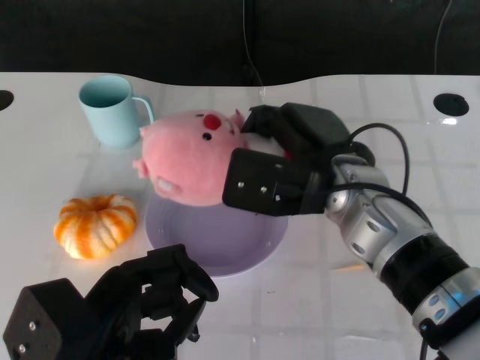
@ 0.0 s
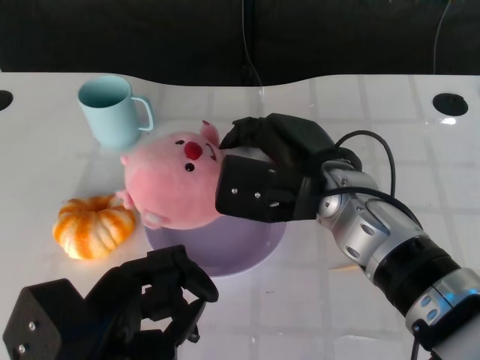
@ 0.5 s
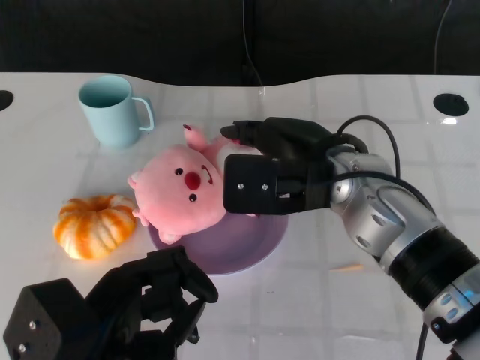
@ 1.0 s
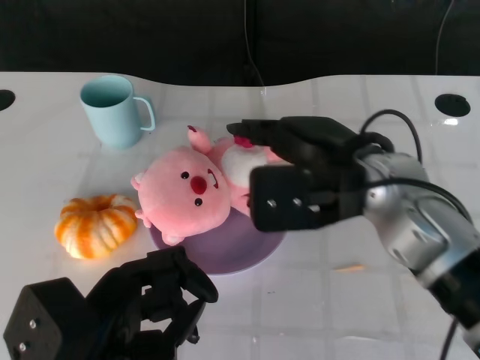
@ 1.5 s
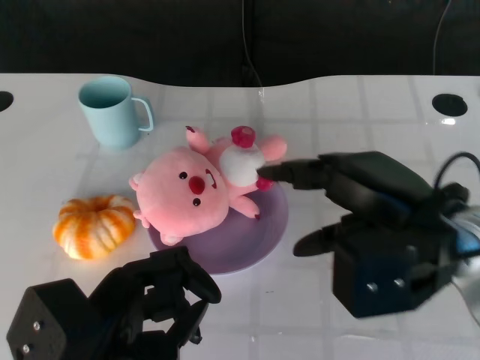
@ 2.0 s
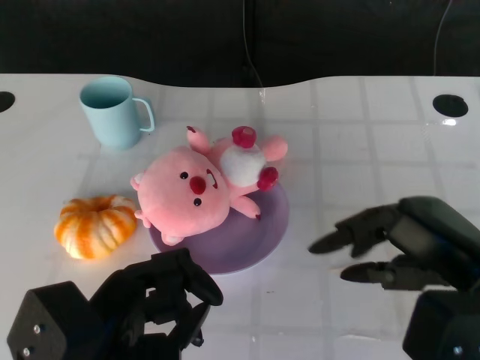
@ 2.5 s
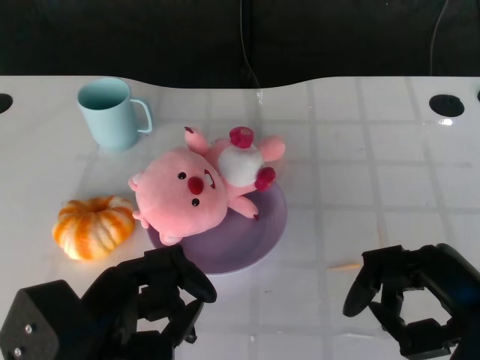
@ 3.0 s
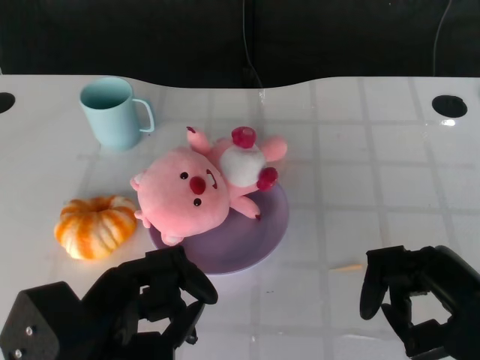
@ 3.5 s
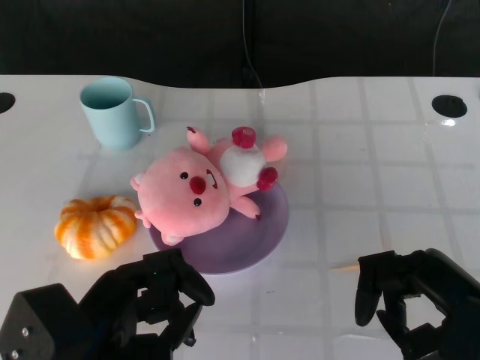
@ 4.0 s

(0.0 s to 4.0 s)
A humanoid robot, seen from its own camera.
Task of the whole recording: Pick up the doll on the other side of the plate and place it into the plate.
0.0 s - 2.0 s: The right hand heads to the right and backward, covering some 10 cm.
2.0 s - 4.0 s: The right hand travels backward, downward and to the right by roughly 10 cm.

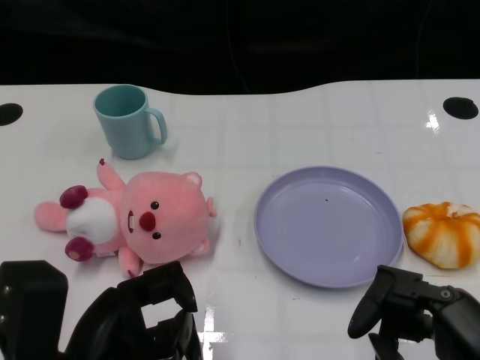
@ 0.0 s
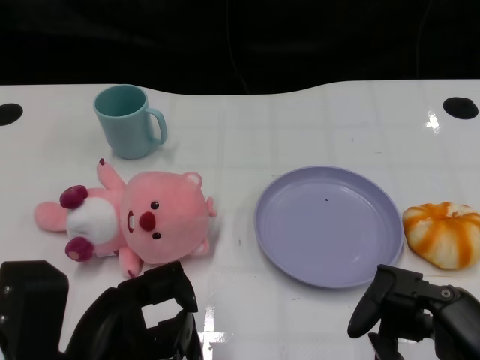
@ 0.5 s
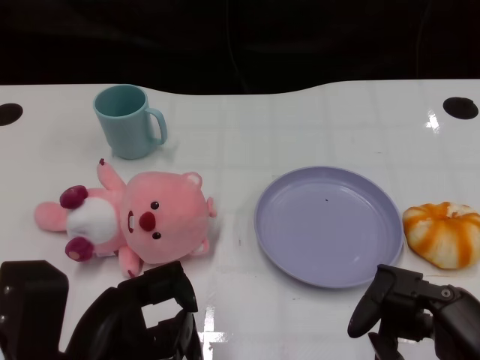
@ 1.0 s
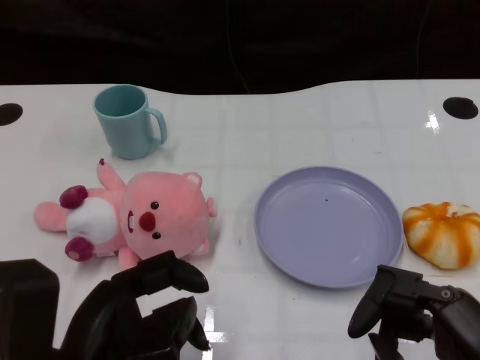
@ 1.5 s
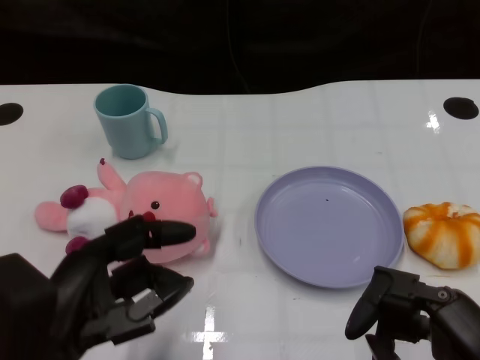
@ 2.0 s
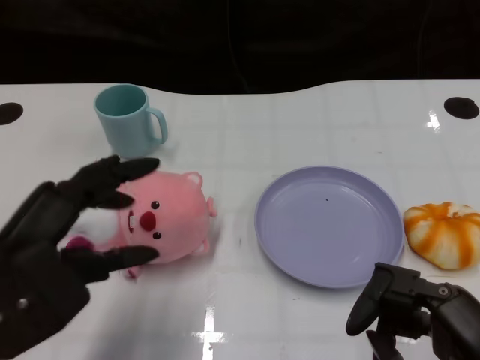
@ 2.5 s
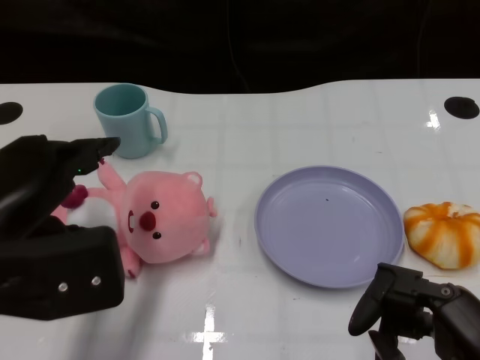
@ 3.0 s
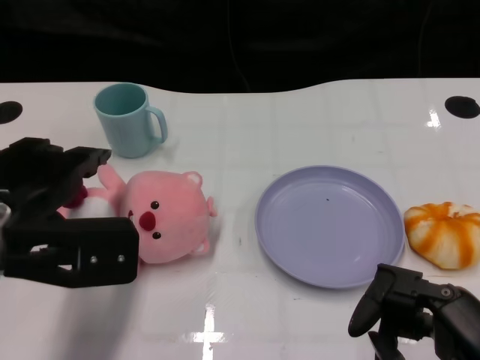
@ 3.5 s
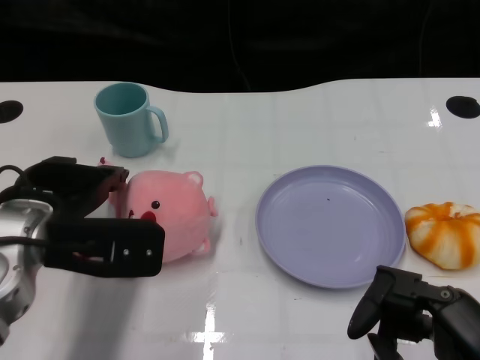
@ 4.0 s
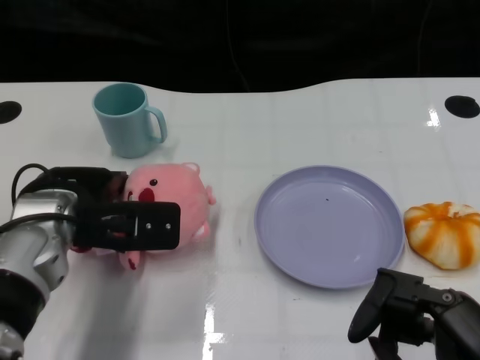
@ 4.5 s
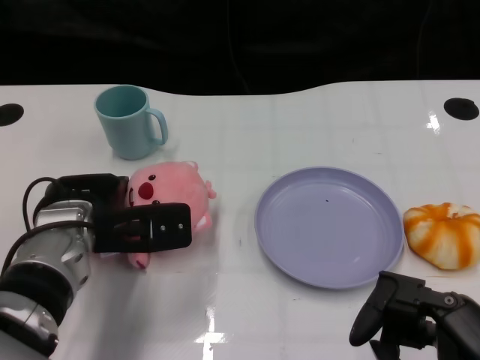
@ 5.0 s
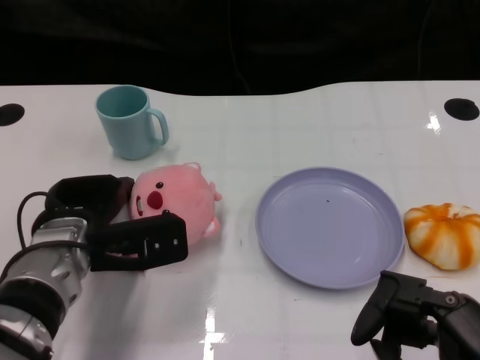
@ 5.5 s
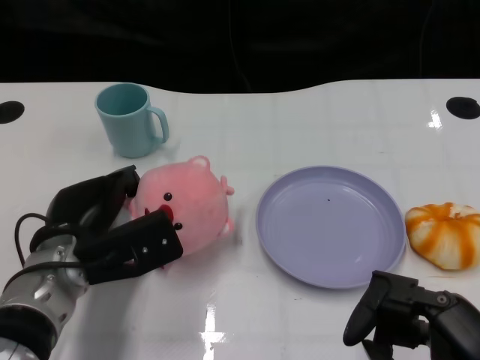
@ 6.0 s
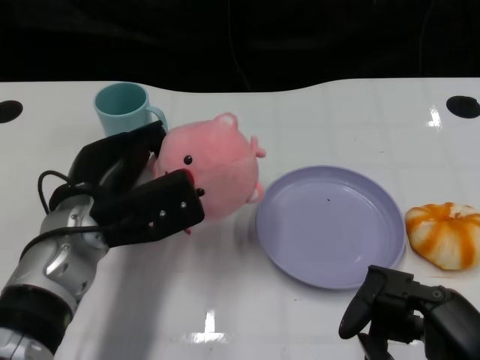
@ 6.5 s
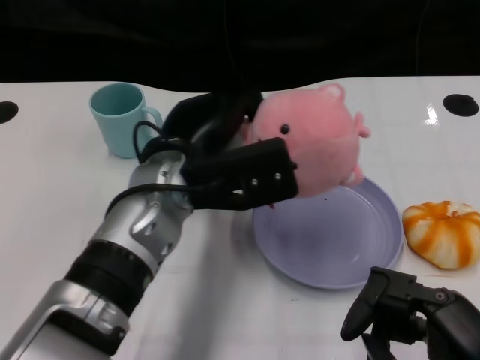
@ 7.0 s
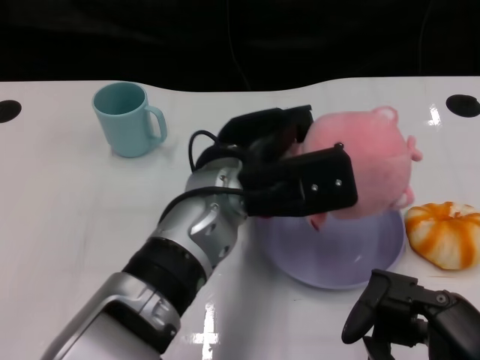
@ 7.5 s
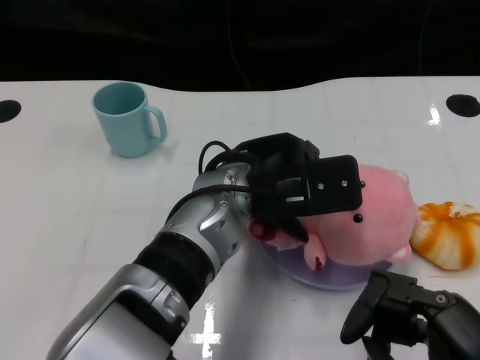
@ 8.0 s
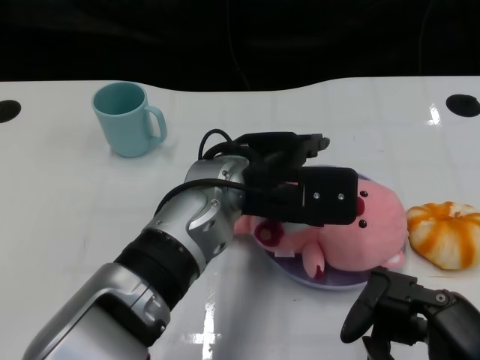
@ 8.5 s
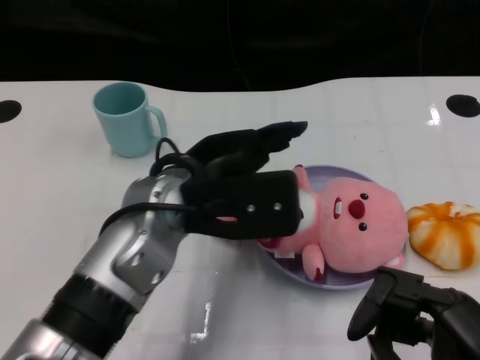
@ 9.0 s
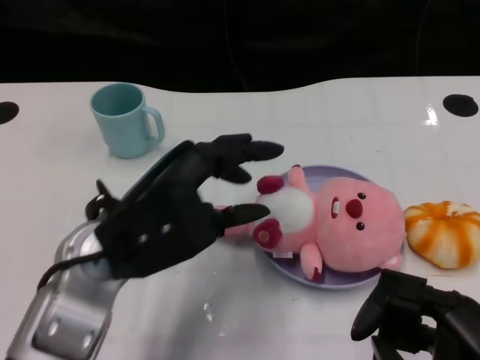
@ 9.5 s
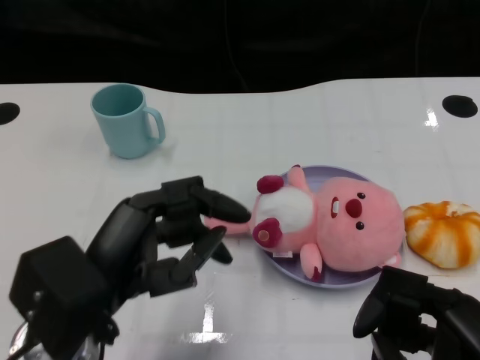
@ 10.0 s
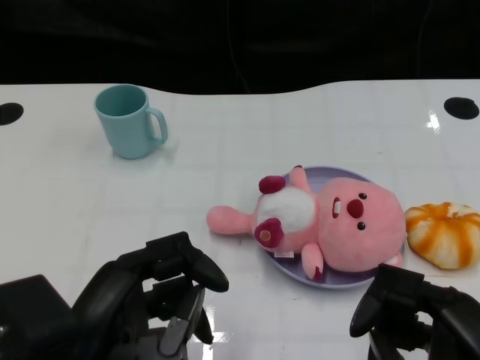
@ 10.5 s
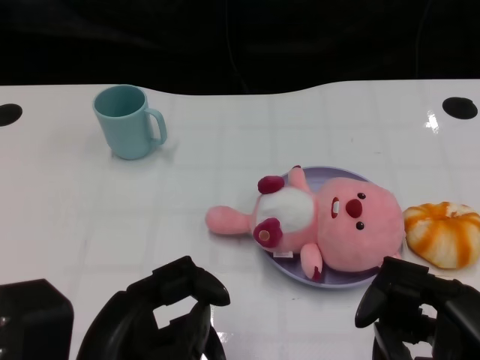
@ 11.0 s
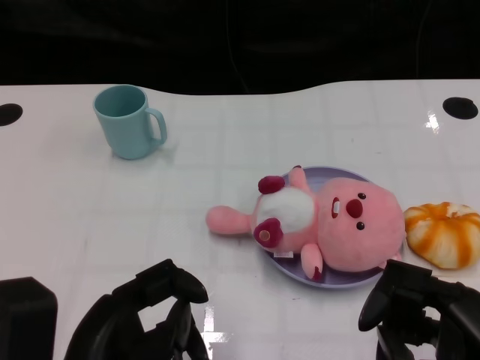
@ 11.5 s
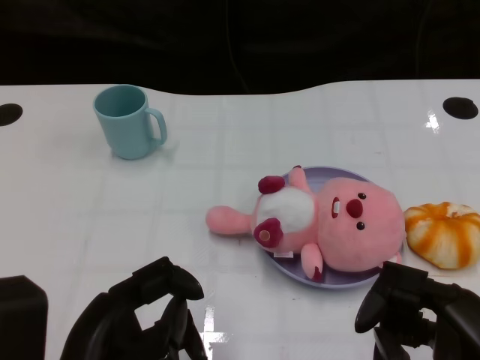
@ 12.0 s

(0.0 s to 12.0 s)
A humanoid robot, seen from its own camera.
Task of the whole recording: Pick up the doll on one side of the plate and place it into the plate.
Step, 1.5 s - 6.0 s: Grasp the pink doll with the left gripper.
Step, 6.5 s - 8.5 s: Place the pink doll into the plate with the left gripper.
2.0 s - 4.0 s: The left hand travels forward by roughly 15 cm.
4.0 s - 6.0 s: The left hand is displaced downward by approximately 5 cm.
6.0 s - 8.0 s: The left hand is displaced to the right and upward by some 20 cm.
8.0 s - 10.0 s: The left hand heads to the left and backward, covering approximately 20 cm.
10.0 s - 12.0 s: The left hand heads backward, covering approximately 5 cm.

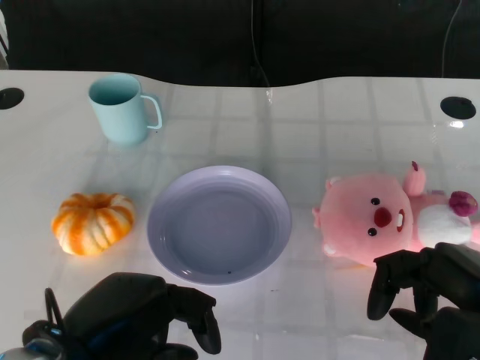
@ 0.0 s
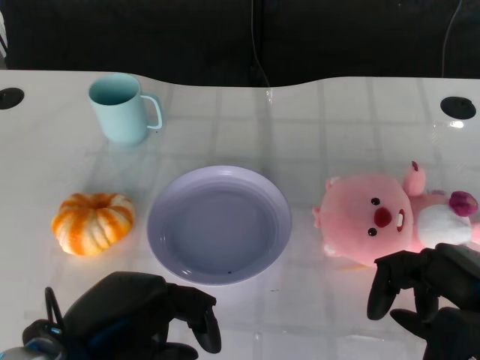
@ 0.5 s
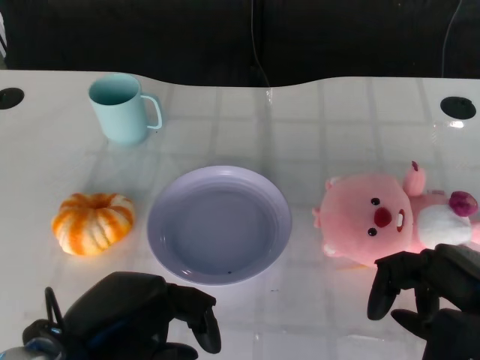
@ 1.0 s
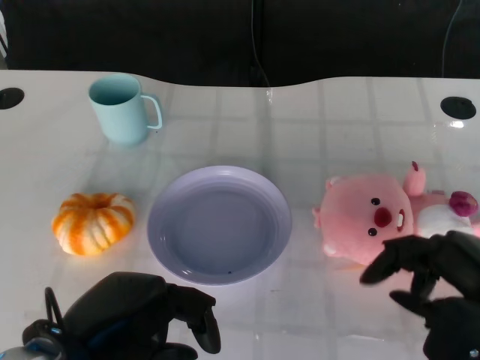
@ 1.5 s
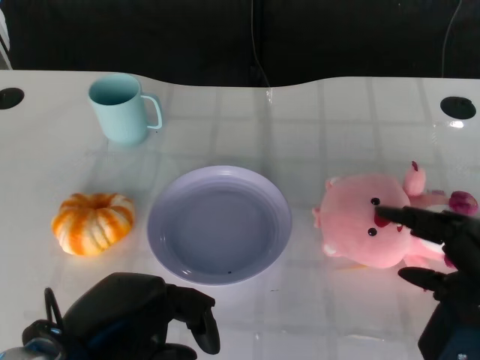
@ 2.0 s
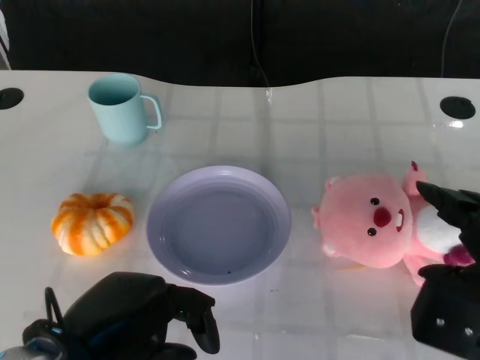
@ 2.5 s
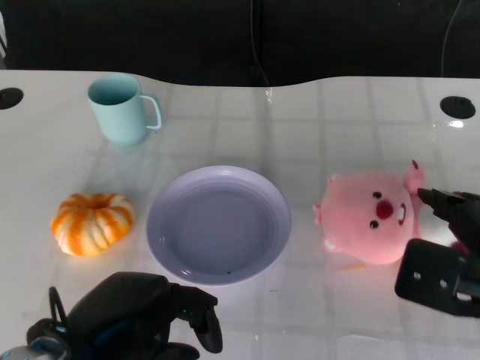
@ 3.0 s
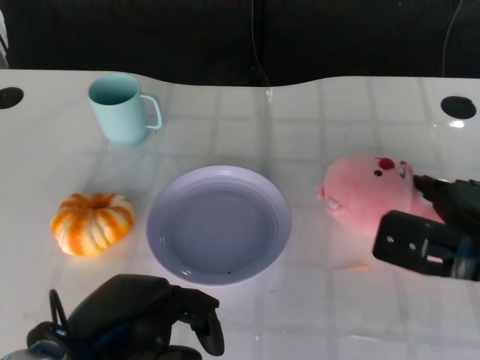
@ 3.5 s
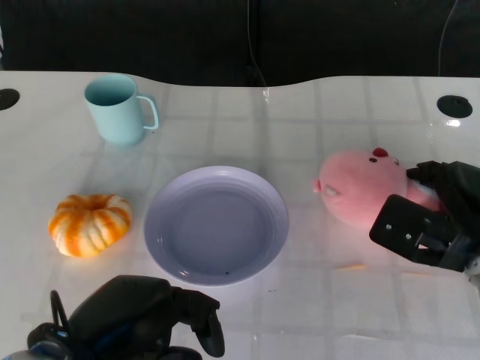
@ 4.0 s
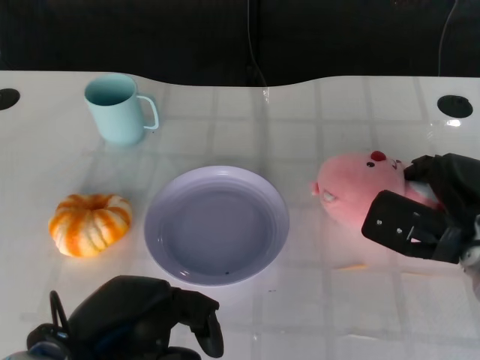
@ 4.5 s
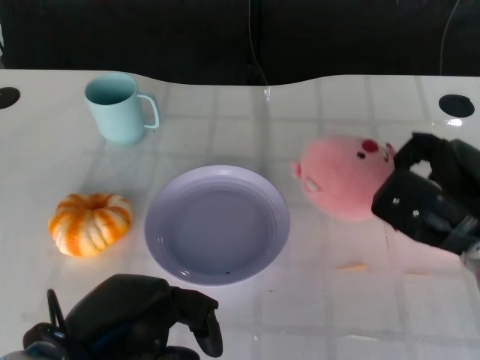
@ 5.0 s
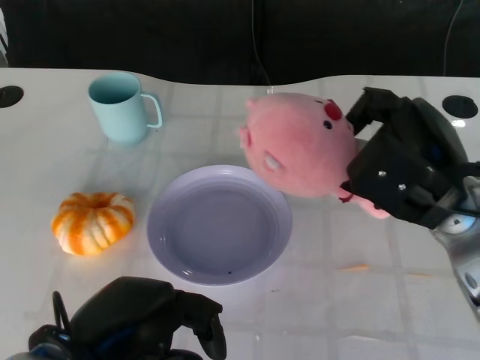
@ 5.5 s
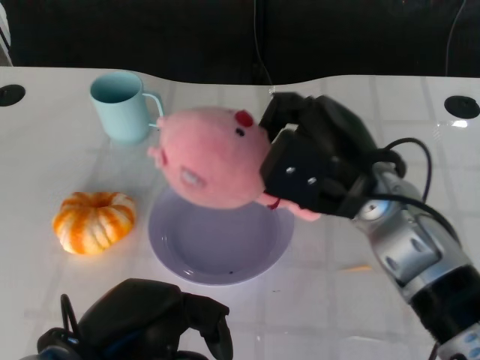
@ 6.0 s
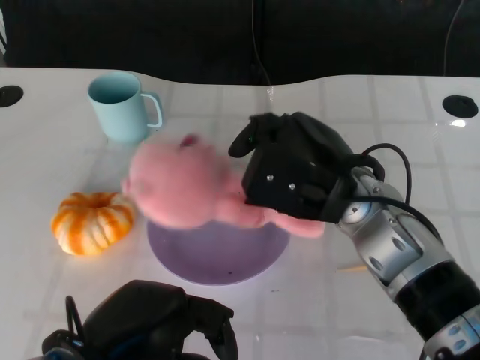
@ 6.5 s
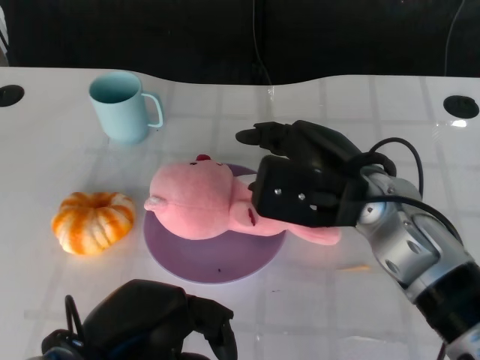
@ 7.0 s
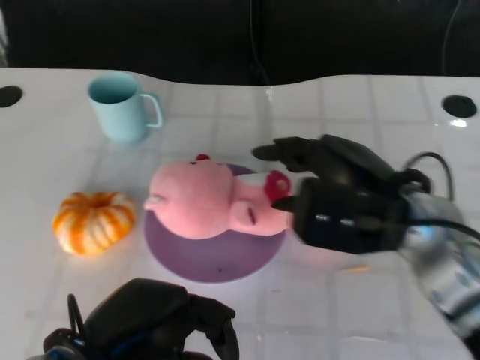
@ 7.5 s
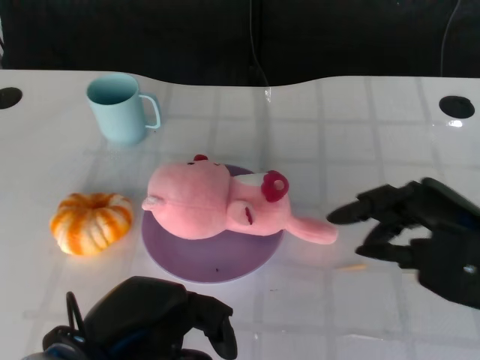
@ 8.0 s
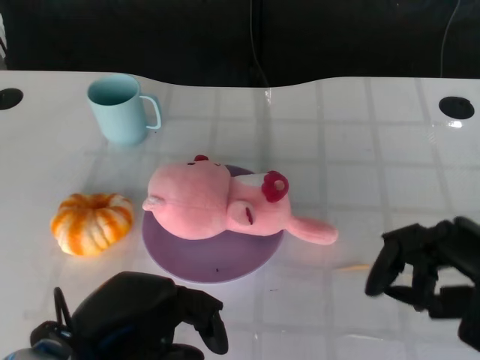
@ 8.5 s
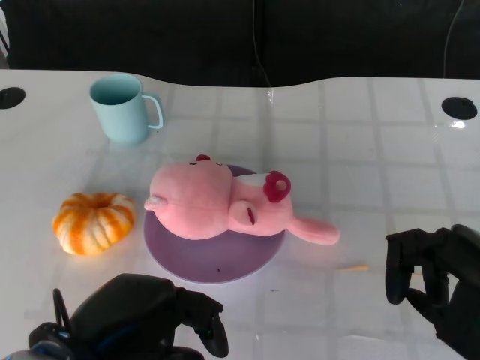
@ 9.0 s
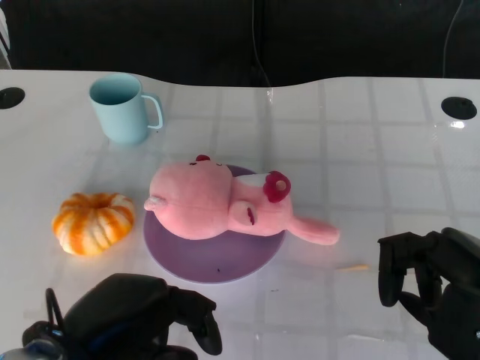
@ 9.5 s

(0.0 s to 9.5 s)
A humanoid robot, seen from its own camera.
Task of the whole recording: Pick up the doll on the other side of the plate and place it into the plate.
Step, 1.5 s - 5.5 s: Grasp the pink doll with the right gripper.
Step, 6.0 s - 7.5 s: Place the pink doll into the plate with the right gripper.
2.0 s - 4.0 s: The right hand heads forward and downward, covering about 10 cm.
4.0 s - 5.5 s: The right hand is displaced upward by approximately 10 cm.
7.5 s - 9.5 s: The right hand travels to the right and backward by approximately 15 cm.
